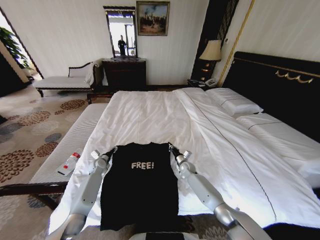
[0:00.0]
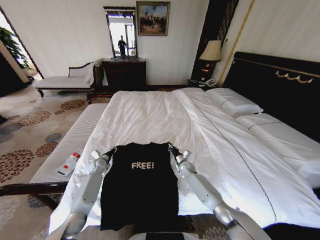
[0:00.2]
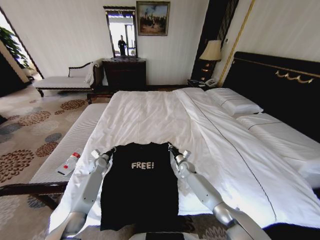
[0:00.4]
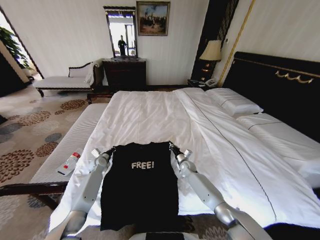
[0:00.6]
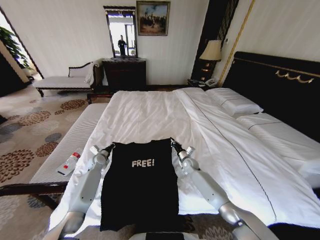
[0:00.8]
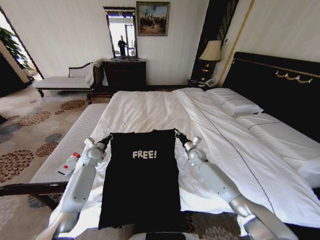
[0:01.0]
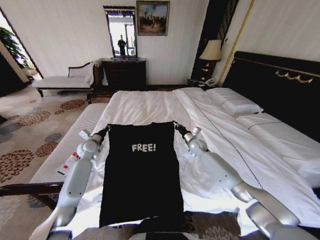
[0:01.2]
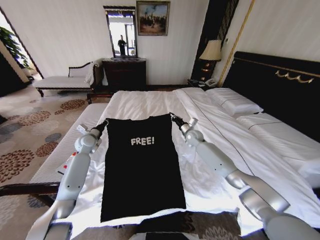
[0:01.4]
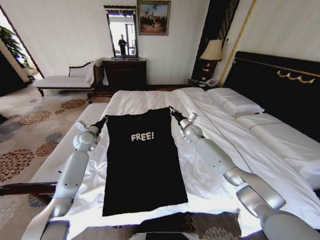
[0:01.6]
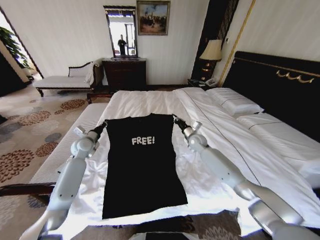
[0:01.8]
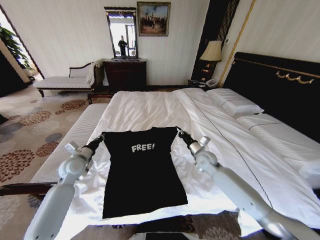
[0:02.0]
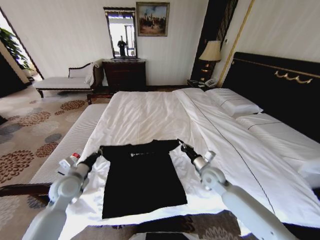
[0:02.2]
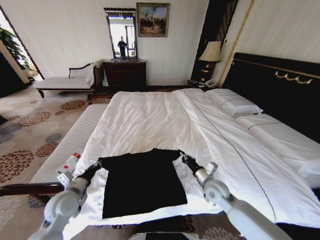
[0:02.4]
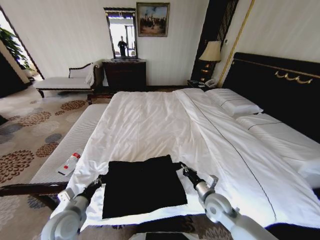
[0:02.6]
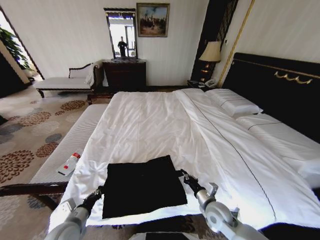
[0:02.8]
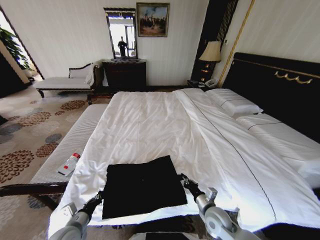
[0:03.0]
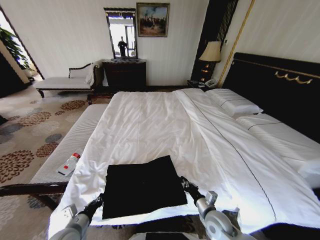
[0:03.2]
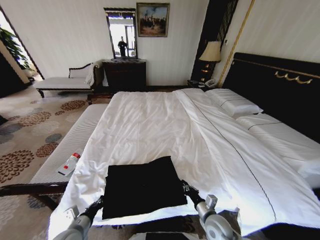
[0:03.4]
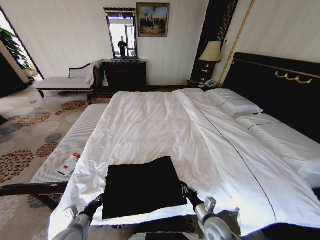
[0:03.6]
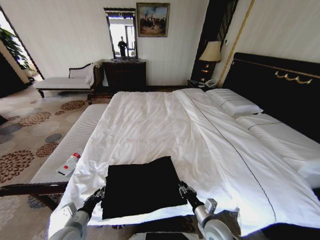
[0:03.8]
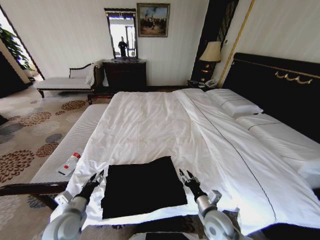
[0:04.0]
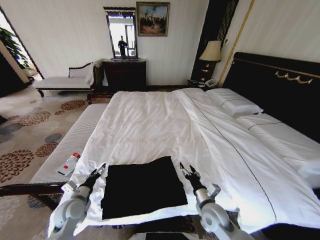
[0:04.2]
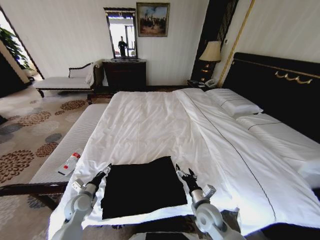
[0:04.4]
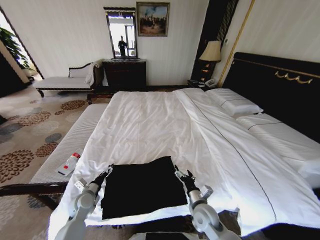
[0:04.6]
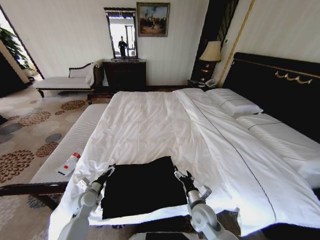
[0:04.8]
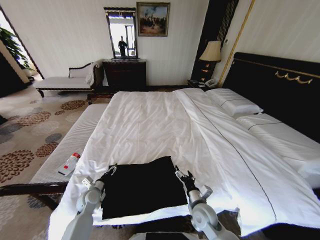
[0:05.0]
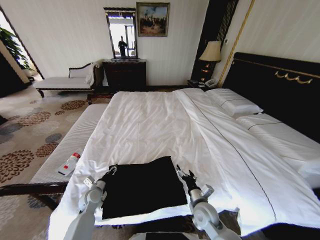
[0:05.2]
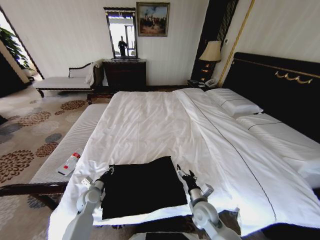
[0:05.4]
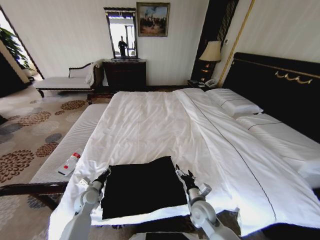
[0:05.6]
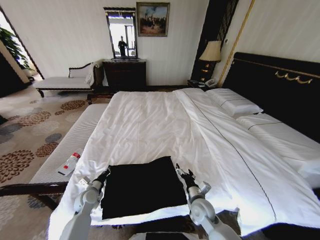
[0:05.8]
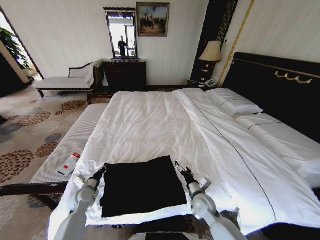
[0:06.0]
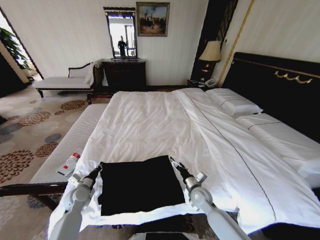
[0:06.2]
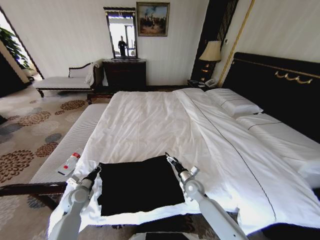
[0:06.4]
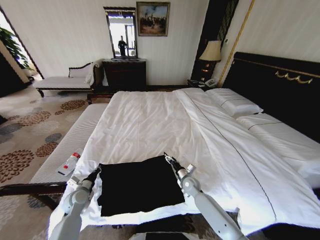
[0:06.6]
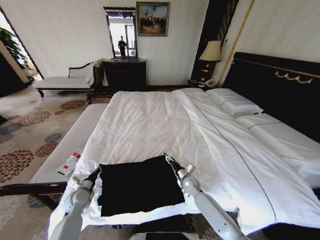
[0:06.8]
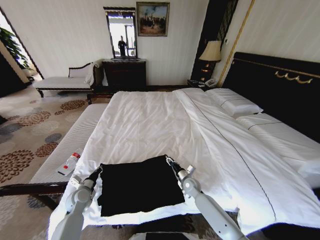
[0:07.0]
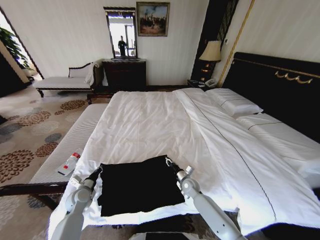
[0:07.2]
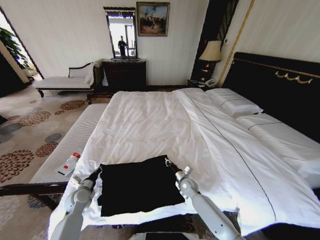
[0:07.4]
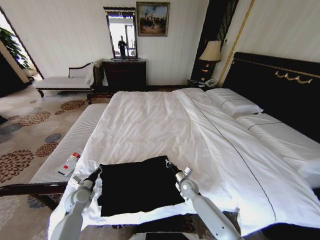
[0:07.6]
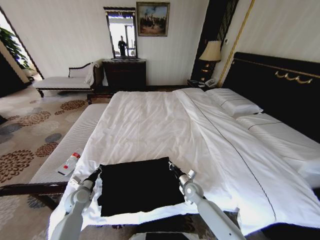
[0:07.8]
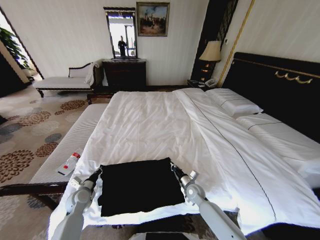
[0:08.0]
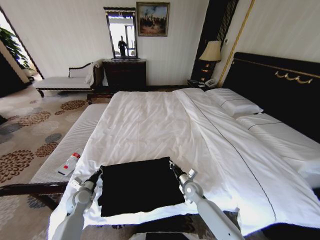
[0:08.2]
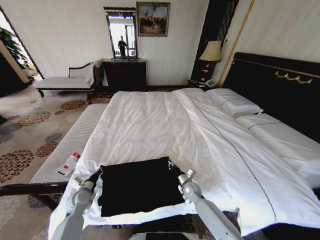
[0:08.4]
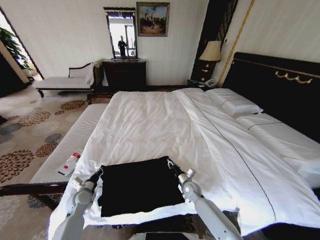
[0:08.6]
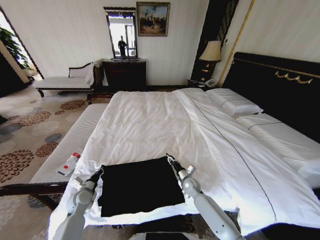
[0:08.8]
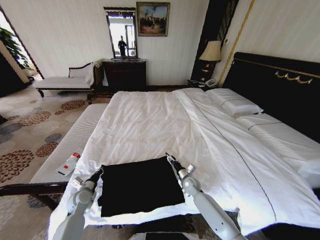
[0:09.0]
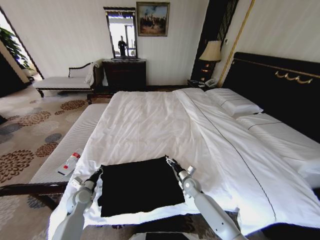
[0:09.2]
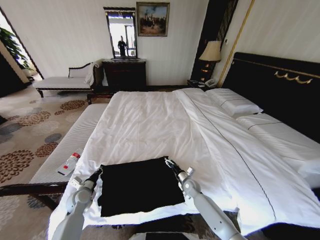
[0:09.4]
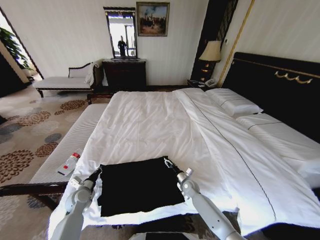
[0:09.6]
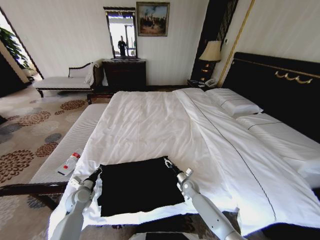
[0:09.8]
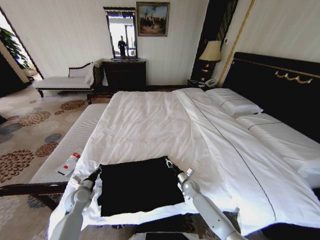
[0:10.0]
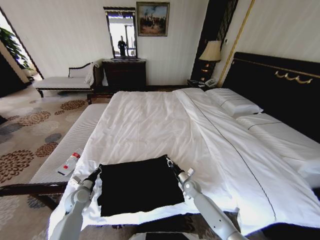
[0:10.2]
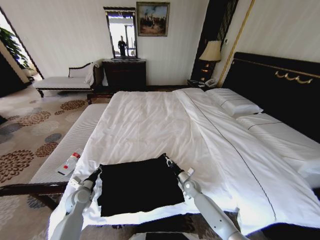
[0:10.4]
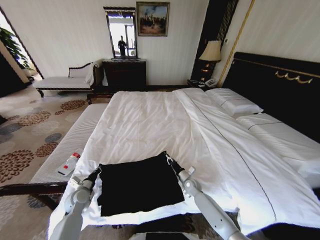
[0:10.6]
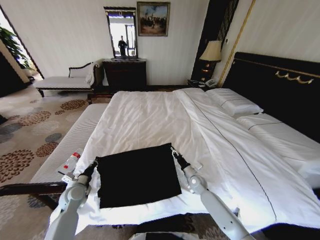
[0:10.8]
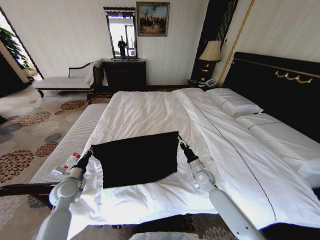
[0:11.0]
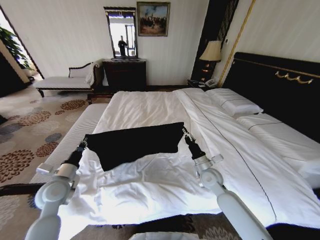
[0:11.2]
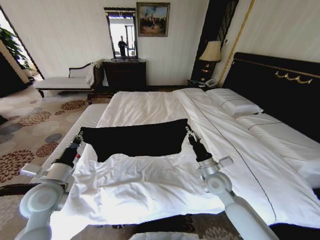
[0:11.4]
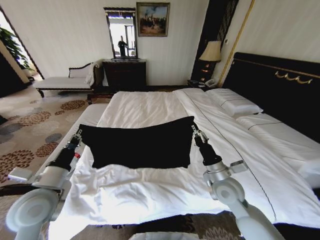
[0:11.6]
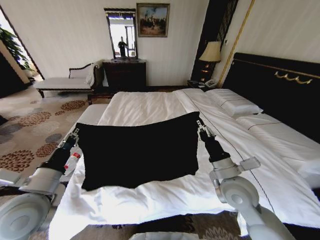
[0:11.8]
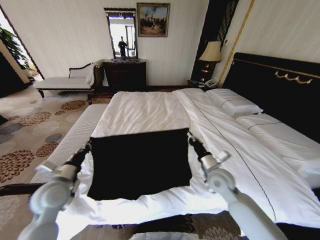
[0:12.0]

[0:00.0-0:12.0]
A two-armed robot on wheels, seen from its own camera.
Task of the whole recording: Fold the clothes on the bed.
0:00.0 to 0:01.6: The left gripper travels upward by approximately 20 cm, and closes up. Meanwhile the right gripper heads upward and forward, covering some 25 cm.
0:01.6 to 0:03.0: The grippers both shift backward by approximately 35 cm.
0:03.0 to 0:04.4: The right gripper opens its fingers, while the left gripper shifts approximately 10 cm forward, and opens its fingers.
0:04.4 to 0:06.0: The left gripper closes.
0:06.0 to 0:07.6: The right gripper travels forward and downward by roughly 10 cm, and closes up.
0:07.6 to 0:09.0: The right gripper opens.
0:09.0 to 0:10.4: The right gripper closes.
0:10.4 to 0:12.0: The two grippers go roughly 25 cm upward.

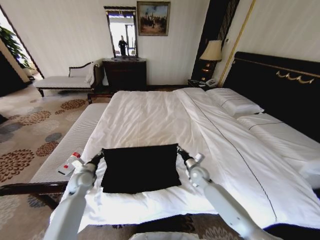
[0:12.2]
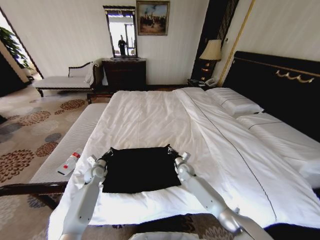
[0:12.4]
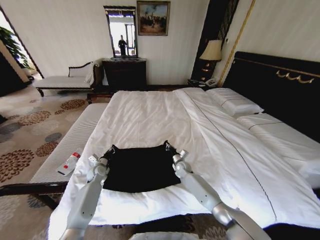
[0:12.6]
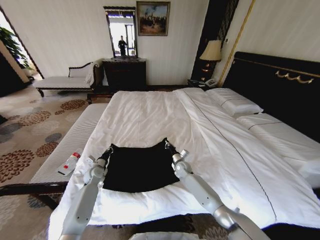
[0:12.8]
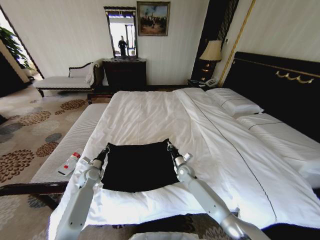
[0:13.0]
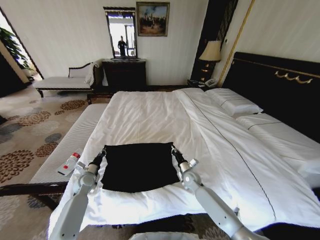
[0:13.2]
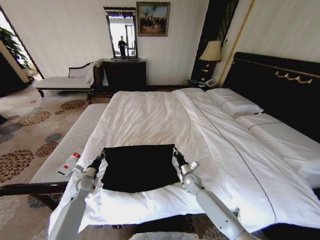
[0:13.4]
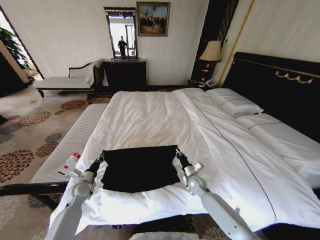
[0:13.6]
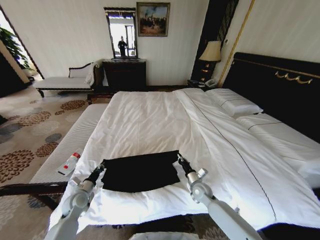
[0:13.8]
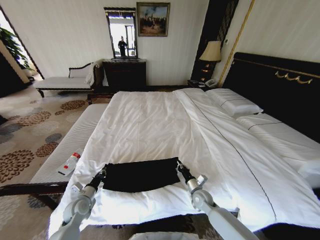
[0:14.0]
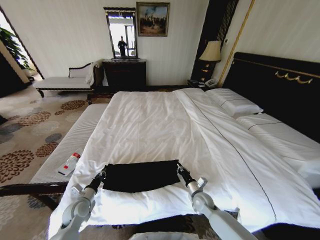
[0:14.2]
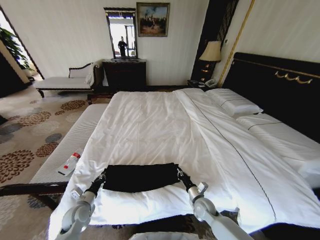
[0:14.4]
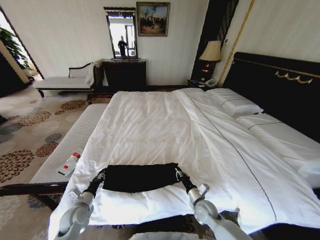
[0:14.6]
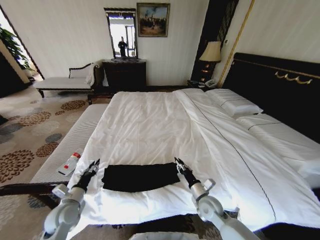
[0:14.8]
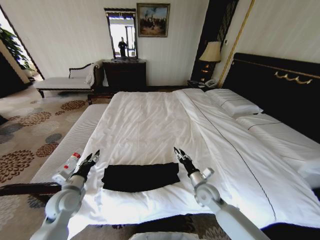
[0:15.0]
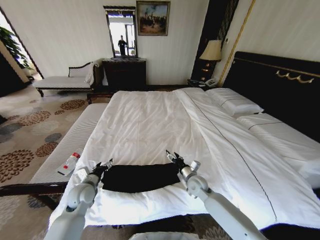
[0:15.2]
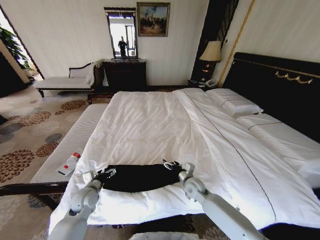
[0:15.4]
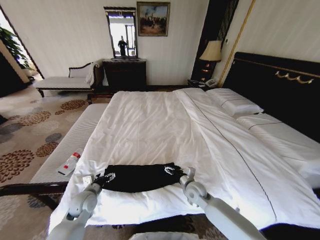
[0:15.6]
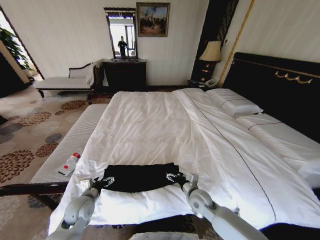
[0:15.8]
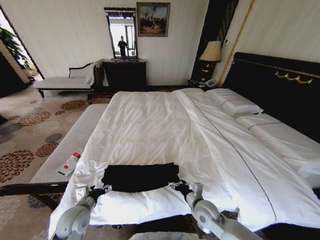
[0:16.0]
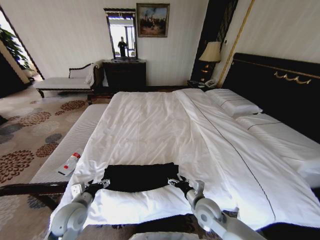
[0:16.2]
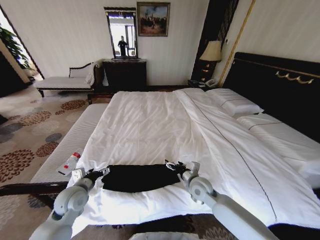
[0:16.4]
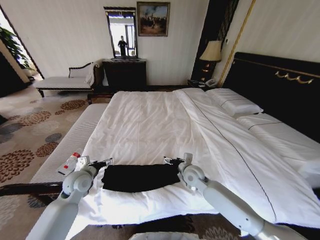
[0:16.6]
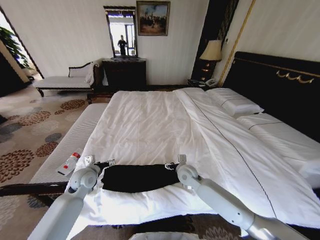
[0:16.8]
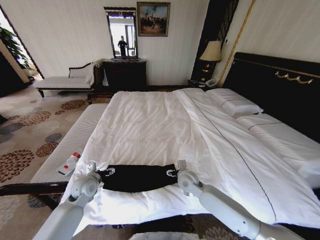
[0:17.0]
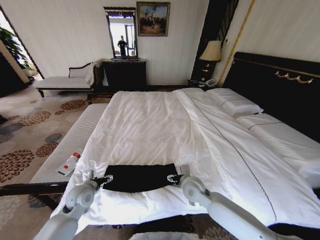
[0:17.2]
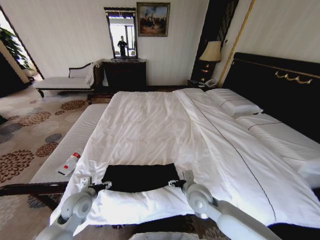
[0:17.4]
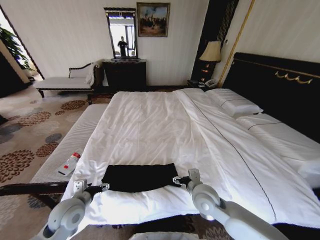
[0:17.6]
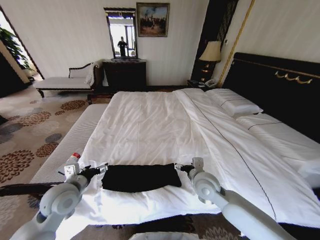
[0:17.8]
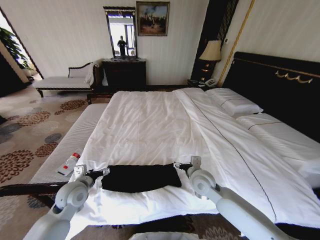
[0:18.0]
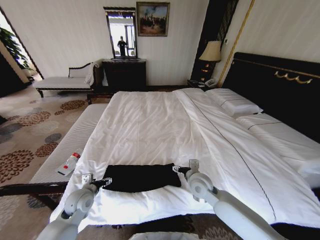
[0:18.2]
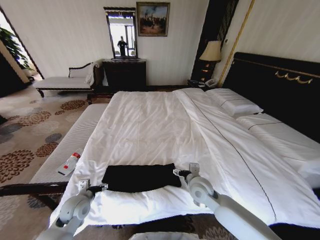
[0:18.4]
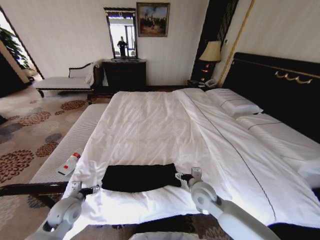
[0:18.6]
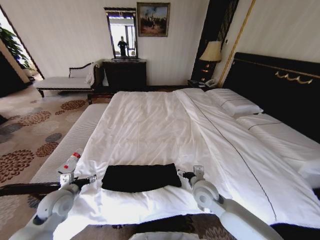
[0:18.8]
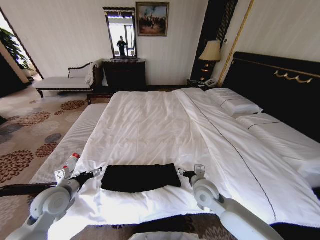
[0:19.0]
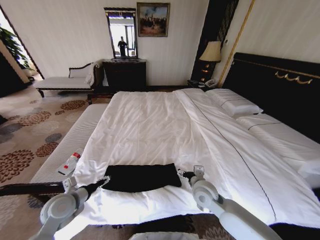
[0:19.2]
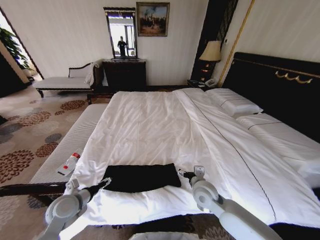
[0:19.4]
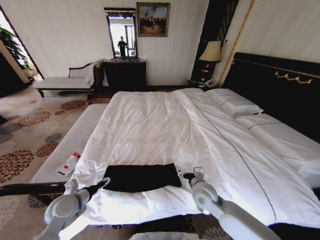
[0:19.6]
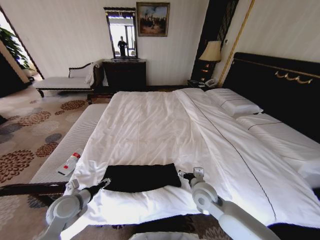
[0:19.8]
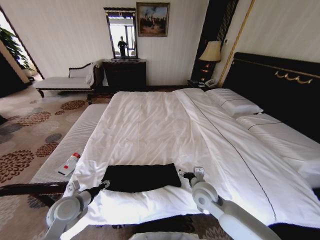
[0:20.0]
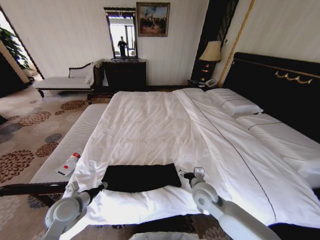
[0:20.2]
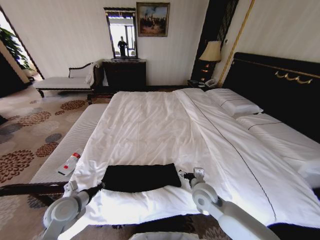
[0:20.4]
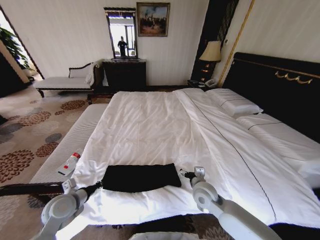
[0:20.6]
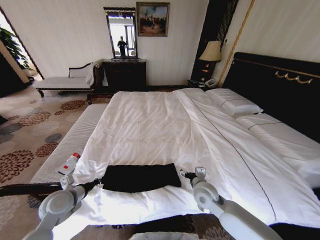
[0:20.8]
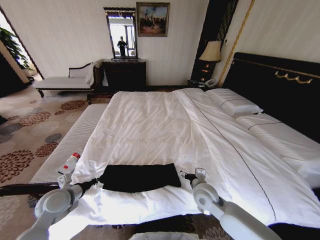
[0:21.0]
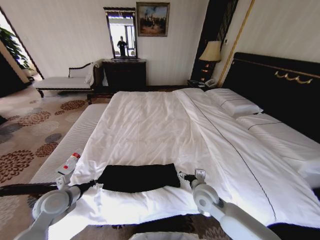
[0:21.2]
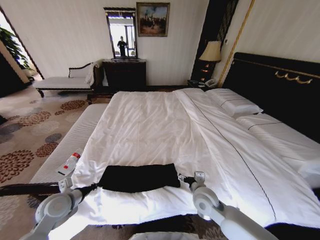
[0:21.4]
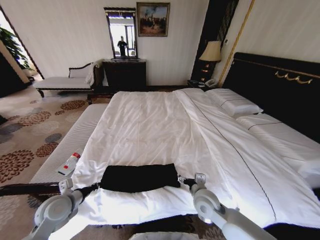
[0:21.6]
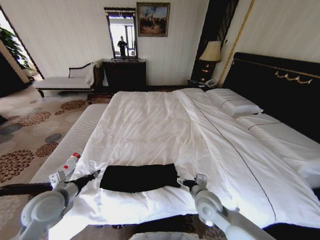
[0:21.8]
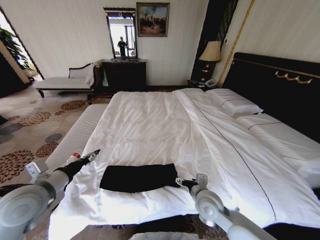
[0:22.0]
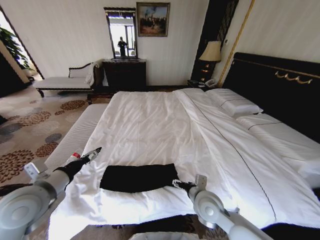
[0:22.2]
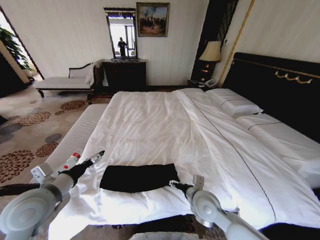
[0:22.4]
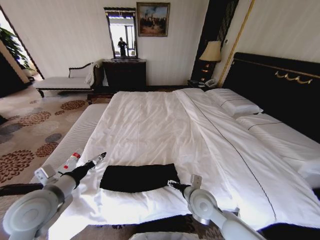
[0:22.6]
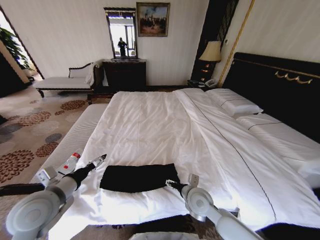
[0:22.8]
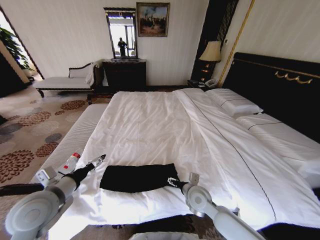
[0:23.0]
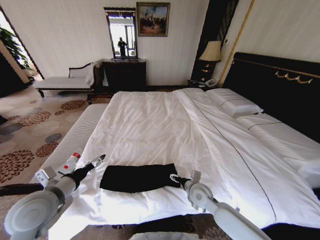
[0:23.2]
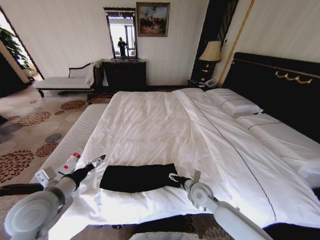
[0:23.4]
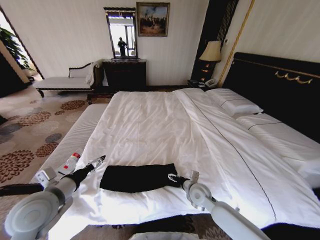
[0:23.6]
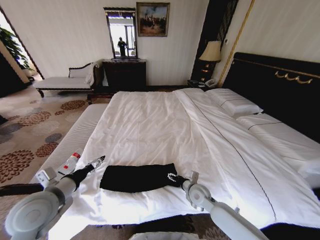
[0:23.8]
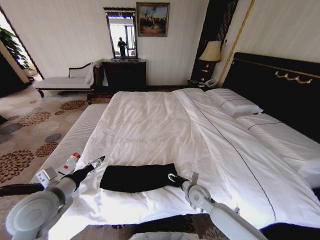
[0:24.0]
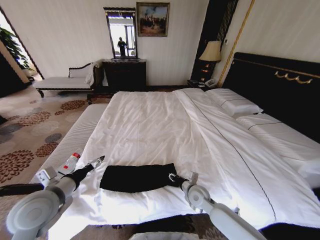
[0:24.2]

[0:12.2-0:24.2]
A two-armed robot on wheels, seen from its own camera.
Task of the whole recording: Fold the clothes on the bed.
0:12.2 to 0:13.8: The two grippers go roughly 10 cm downward and backward.
0:13.8 to 0:15.2: Both grippers move upward, about 5 cm. The right gripper opens up. The left gripper opens.
0:15.2 to 0:16.6: Both grippers move upward, approximately 5 cm. The right gripper goes backward and returns, roughly 10 cm each way. Meanwhile the left gripper reaches approximately 10 cm backward, then returns.
0:16.6 to 0:18.2: The left gripper moves downward and backward, about 10 cm. The right gripper heads backward, covering about 5 cm.
0:18.2 to 0:19.8: The left gripper reaches some 10 cm upward, then returns.
0:19.8 to 0:21.2: The left gripper closes.
0:21.2 to 0:22.6: The left gripper shifts about 10 cm upward, and opens.
0:22.6 to 0:24.2: The right gripper is displaced downward by some 10 cm, and closes.
